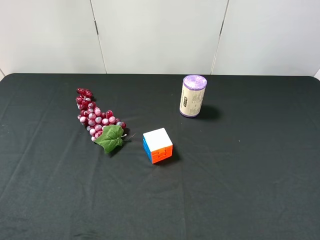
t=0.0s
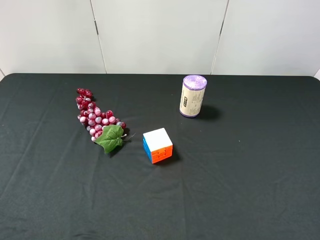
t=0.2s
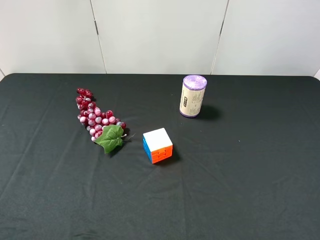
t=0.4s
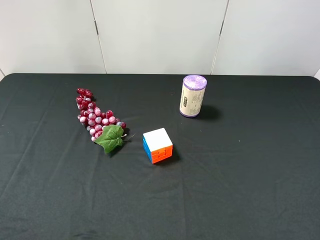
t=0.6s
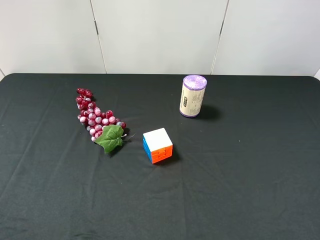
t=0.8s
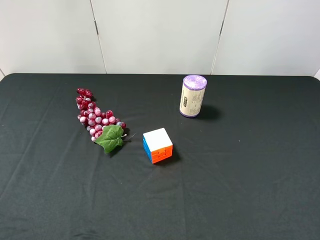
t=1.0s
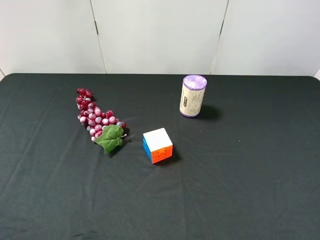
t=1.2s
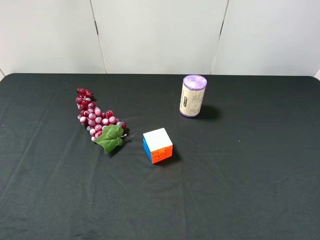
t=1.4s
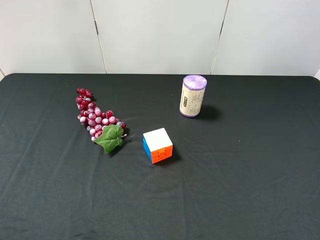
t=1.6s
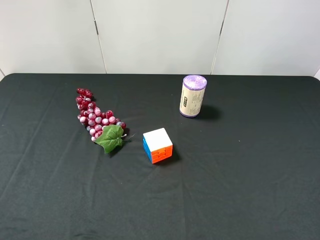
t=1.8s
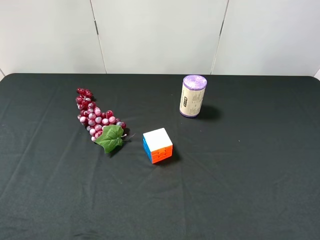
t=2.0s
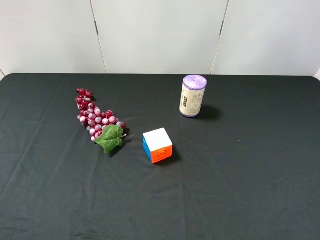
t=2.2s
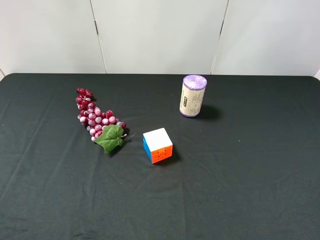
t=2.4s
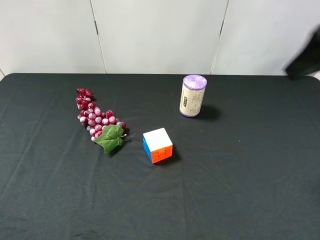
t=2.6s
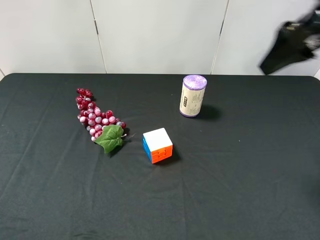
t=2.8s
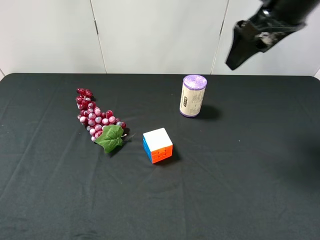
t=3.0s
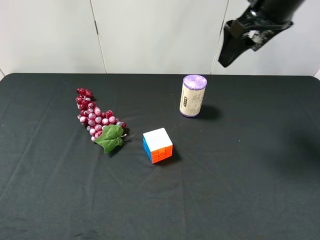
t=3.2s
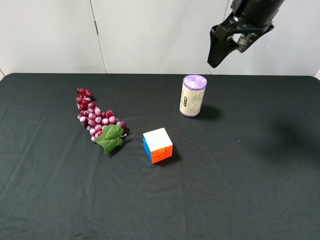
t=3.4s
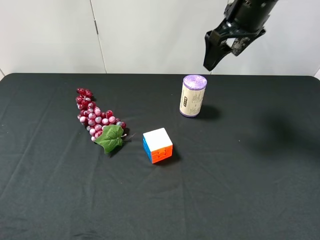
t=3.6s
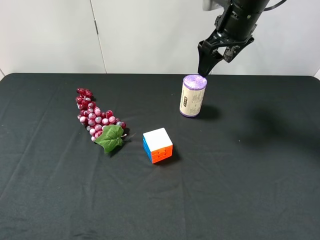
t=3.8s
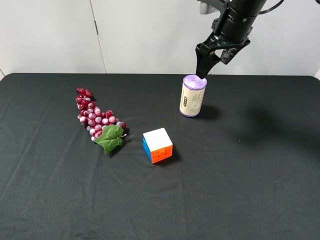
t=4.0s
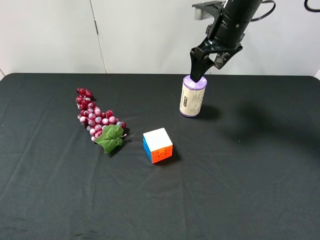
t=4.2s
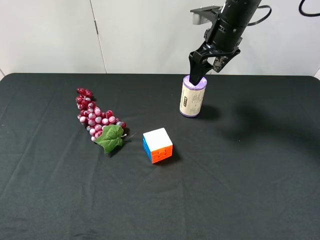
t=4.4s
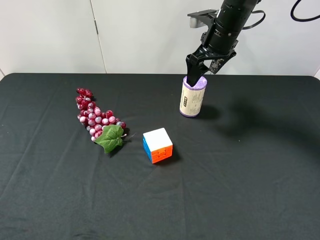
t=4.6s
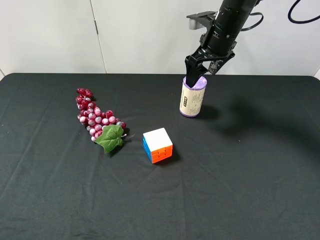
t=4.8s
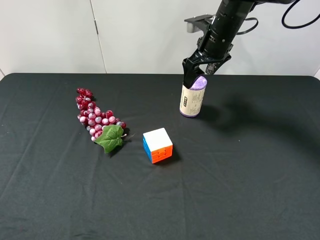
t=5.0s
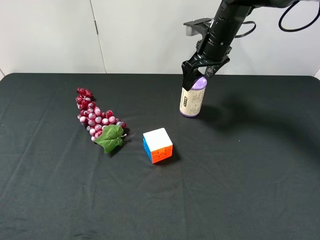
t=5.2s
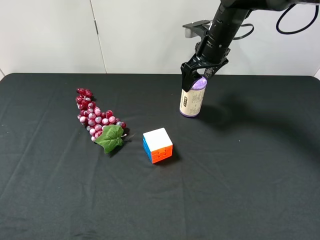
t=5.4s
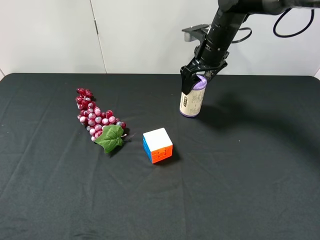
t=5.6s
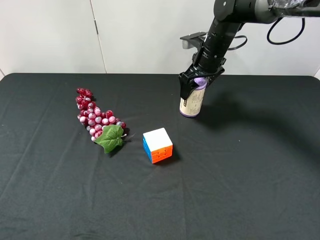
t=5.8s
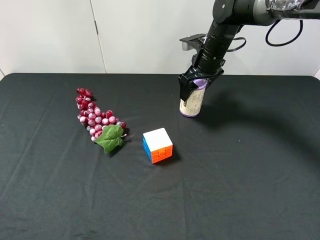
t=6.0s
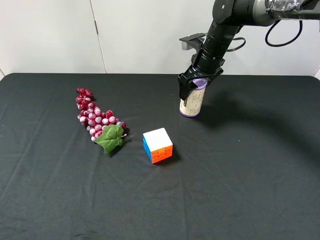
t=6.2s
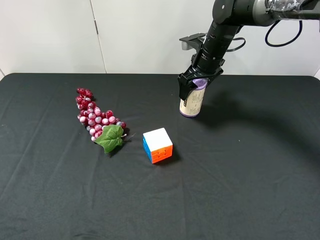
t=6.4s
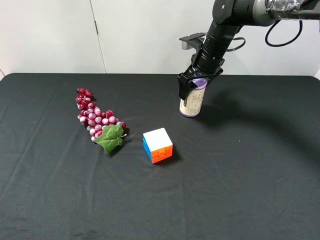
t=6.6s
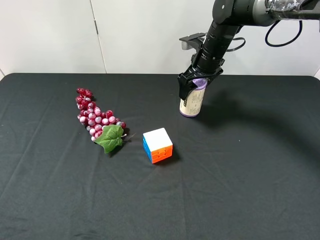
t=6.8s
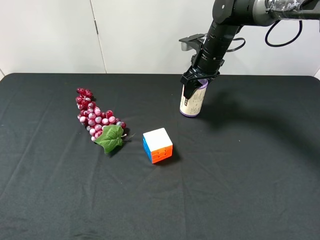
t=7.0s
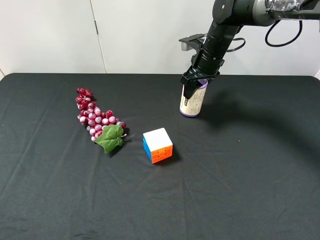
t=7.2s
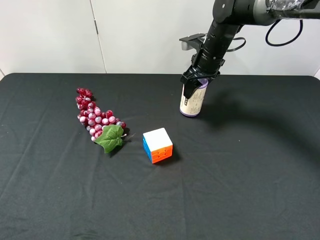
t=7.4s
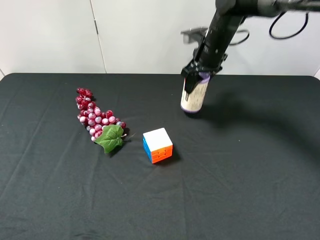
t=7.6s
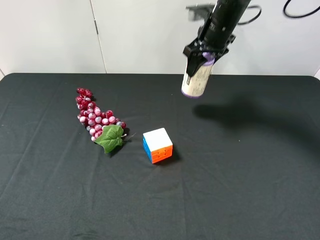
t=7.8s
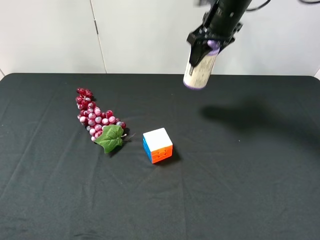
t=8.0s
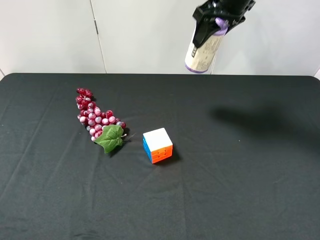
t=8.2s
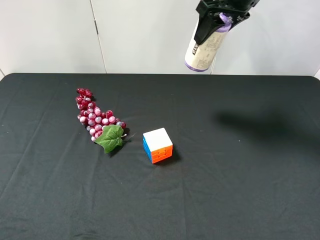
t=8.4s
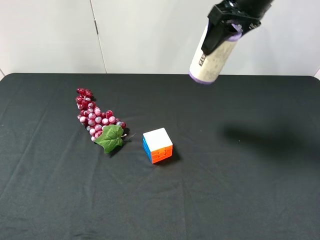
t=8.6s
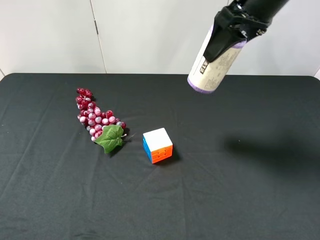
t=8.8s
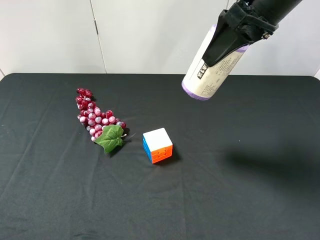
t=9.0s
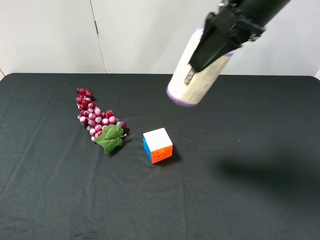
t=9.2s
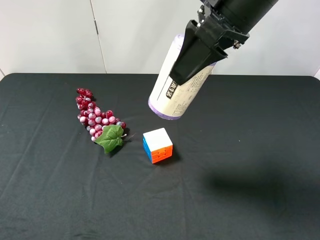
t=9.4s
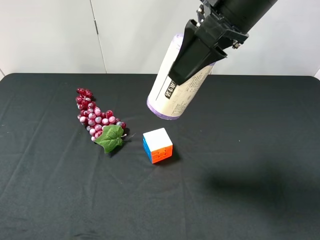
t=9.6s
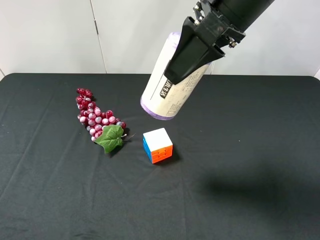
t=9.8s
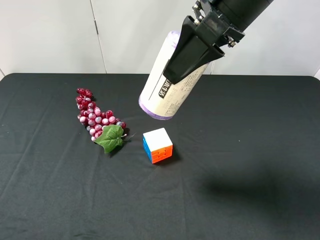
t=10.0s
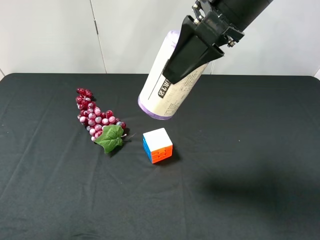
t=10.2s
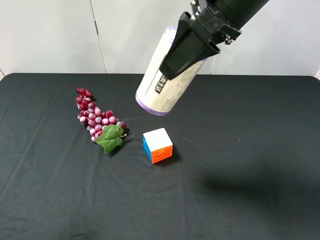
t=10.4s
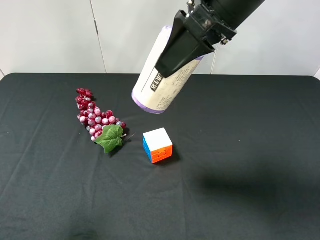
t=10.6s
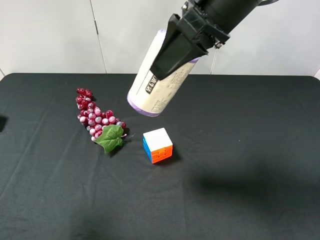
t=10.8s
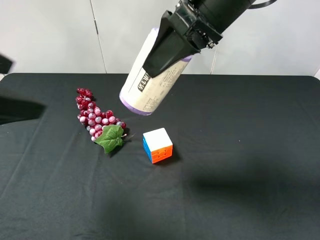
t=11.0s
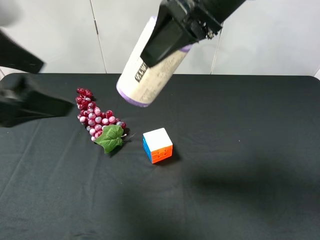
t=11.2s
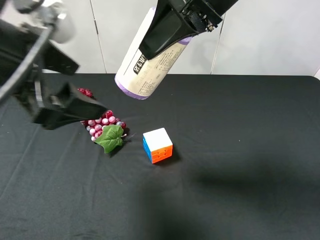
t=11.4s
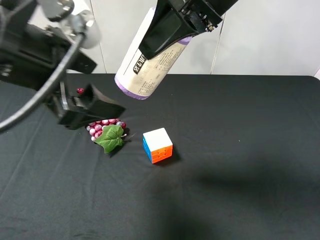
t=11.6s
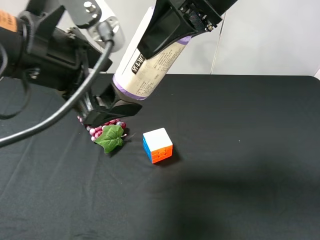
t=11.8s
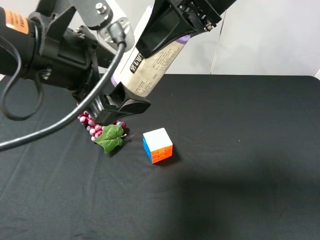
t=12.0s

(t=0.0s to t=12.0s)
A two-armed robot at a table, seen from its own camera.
Task of the whole recording: use the right gripper to pick up the item and transfer it from the right gripper to the left gripper.
Step, t=0.0s - t=7.2s: Use the right gripper to grab the purple garbage bag on the right side of the table.
t=0.0s - t=1.6s: The two grippers keep their place.
t=1.6s - t=3.0s: The right gripper goes some 30 cm forward.
t=3.0s - t=4.4s: The right gripper is displaced forward and downward by roughly 15 cm.
t=4.4s - t=6.0s: The right gripper goes roughly 5 cm downward.
t=6.0s - t=7.6s: The right gripper closes.
t=7.6s - t=9.0s: The right gripper shifts some 20 cm backward and upward.
t=9.0s - t=10.4s: The left gripper is displaced forward by approximately 5 cm. Meanwhile the right gripper travels to the left by some 5 cm.
t=10.4s - t=12.0s: The left gripper travels to the right and forward by roughly 20 cm.

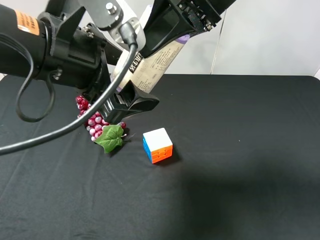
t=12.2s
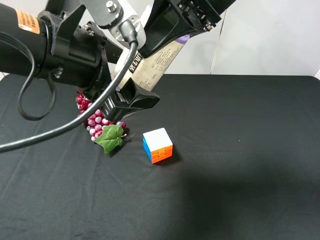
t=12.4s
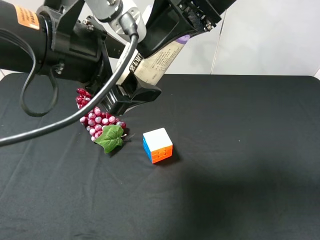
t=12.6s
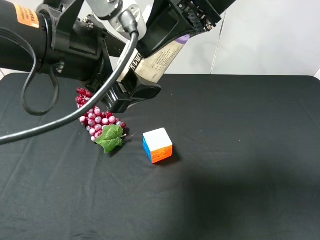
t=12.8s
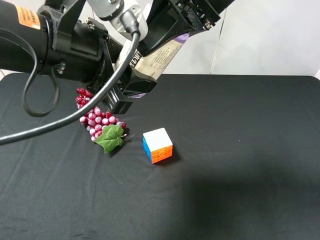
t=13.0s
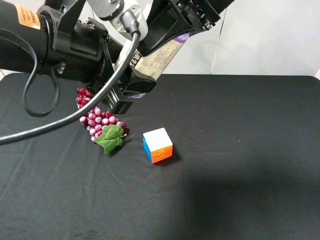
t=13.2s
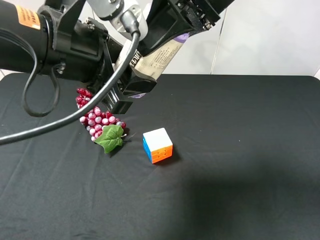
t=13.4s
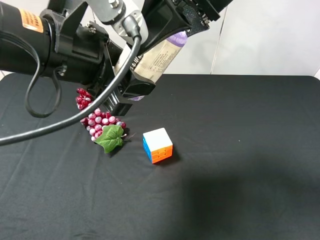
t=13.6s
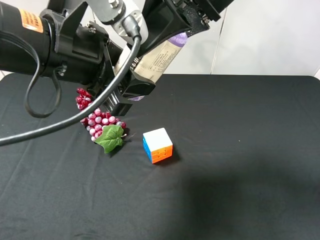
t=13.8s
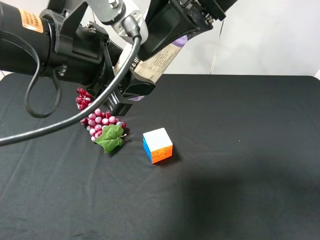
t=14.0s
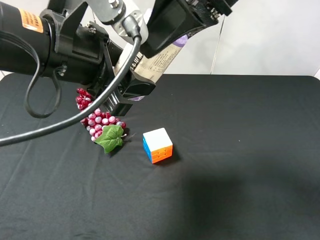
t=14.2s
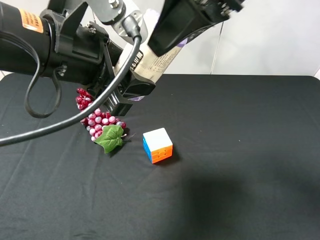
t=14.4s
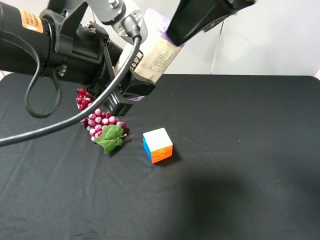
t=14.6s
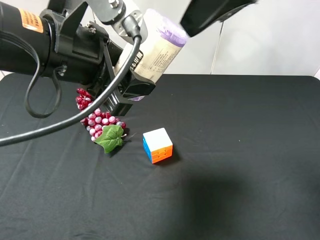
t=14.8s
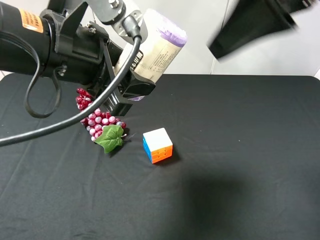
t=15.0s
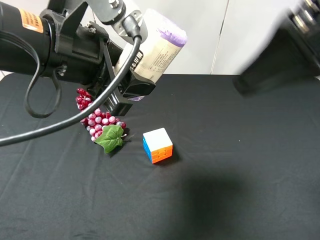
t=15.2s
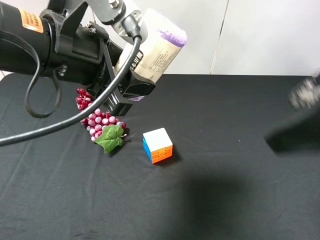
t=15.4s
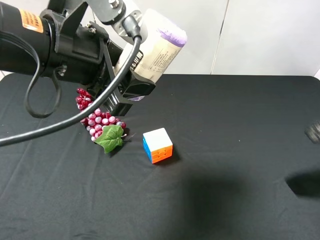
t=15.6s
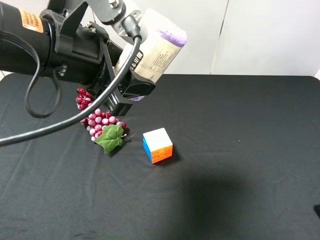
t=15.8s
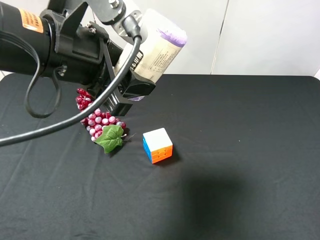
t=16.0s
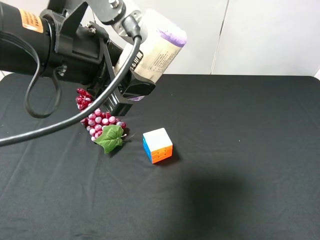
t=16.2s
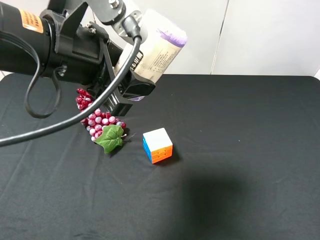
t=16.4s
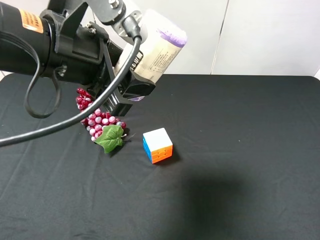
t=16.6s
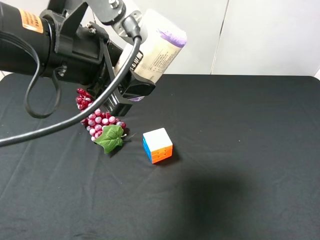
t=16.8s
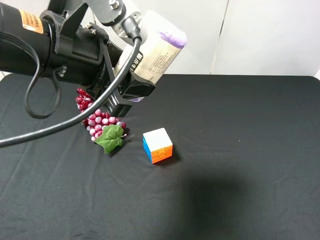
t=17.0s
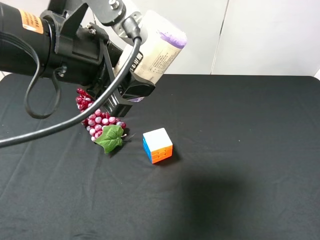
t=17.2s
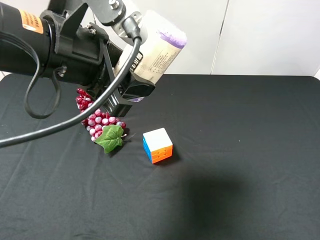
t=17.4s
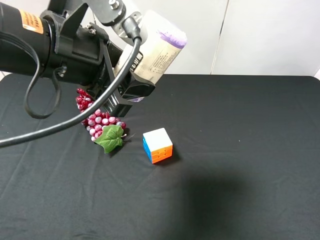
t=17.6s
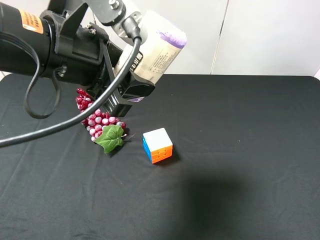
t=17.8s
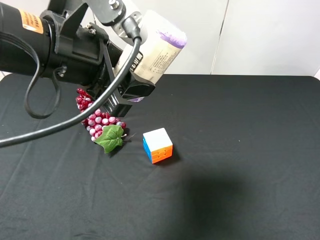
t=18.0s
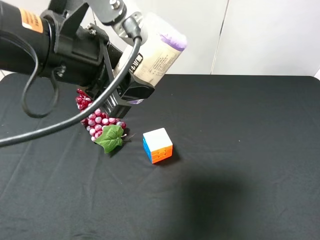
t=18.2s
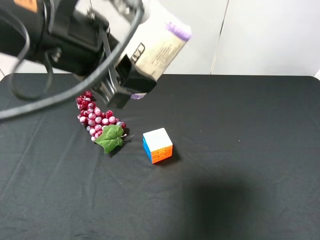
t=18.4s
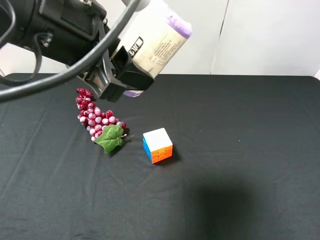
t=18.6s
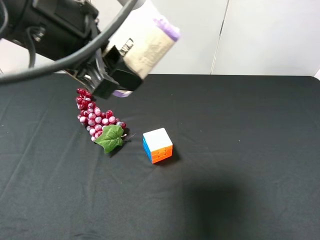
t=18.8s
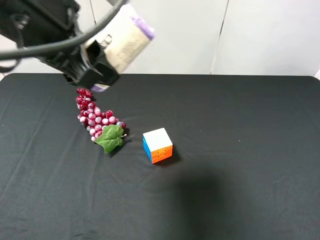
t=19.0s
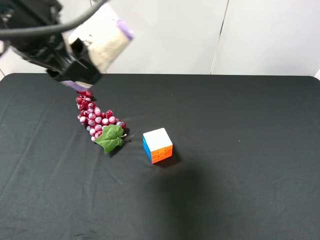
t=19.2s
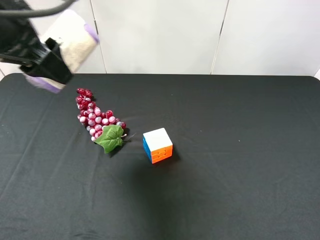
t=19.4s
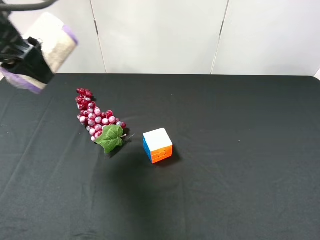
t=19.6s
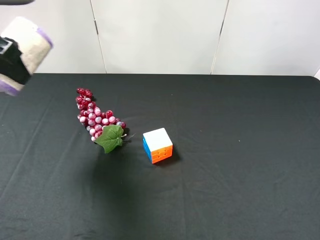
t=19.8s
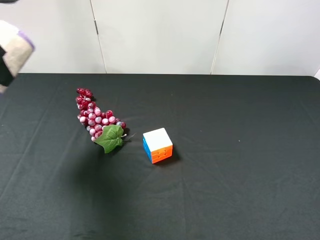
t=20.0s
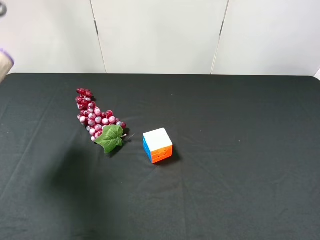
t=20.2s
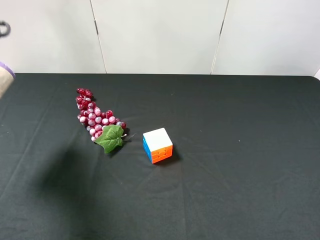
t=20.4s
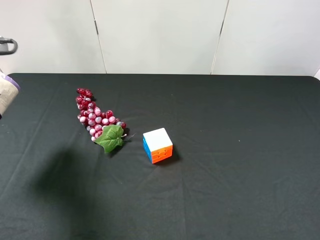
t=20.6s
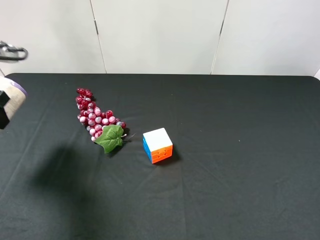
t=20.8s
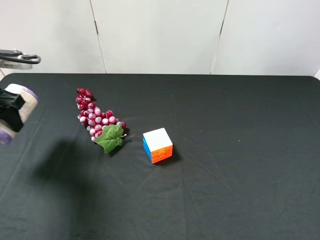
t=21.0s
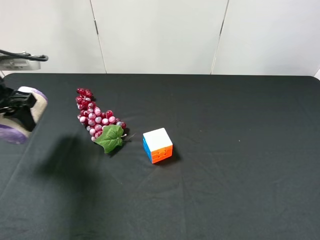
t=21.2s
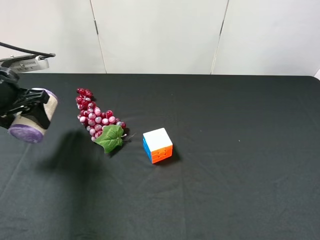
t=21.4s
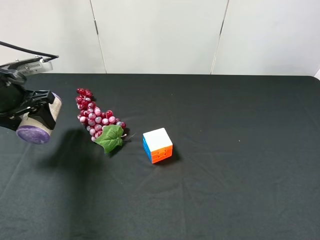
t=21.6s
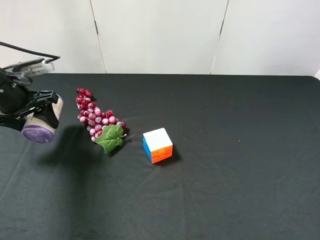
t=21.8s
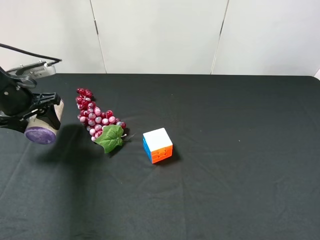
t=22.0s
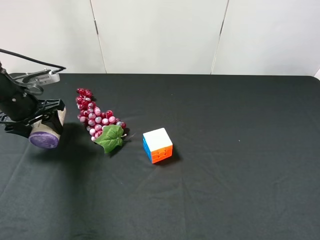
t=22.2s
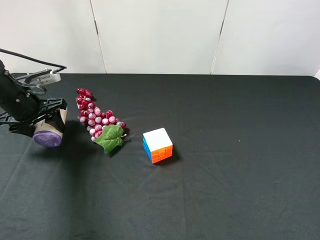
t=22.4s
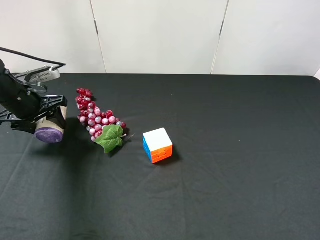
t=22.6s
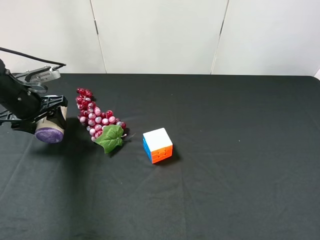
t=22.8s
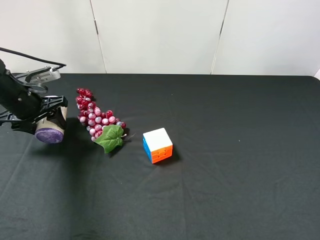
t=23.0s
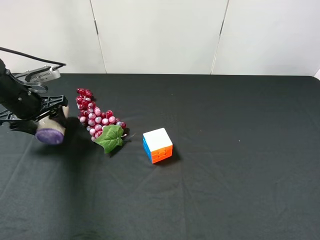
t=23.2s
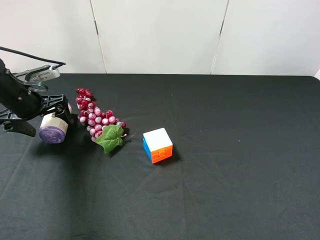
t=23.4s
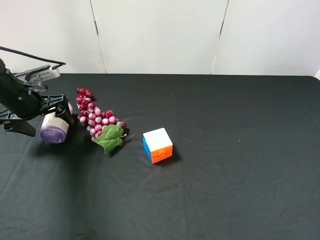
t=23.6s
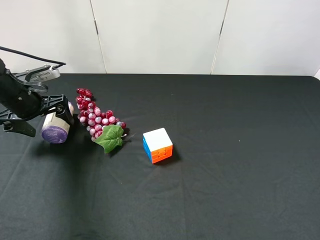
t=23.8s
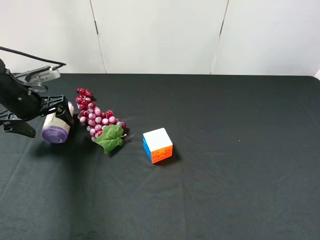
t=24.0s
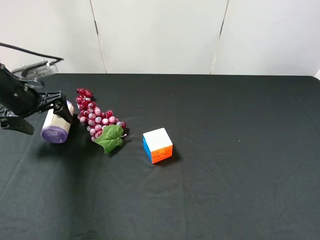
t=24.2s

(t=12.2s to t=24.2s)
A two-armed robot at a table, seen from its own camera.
Task of the whole recording: use the right gripper to pick up the item and transfer it from the right gripper to the left gripper.
Step, t=13.8s - t=23.4s: The left gripper places purple garbage bag on the left side of the table.
t=12.2s - t=13.8s: The left gripper closes, while the right gripper opens up.
t=13.8s - t=15.2s: The right gripper travels backward and to the right by some 15 cm.
t=15.2s - t=16.6s: The right gripper is displaced backward, to the right and downward by approximately 20 cm.
t=18.2s - t=19.8s: The left gripper moves to the left, approximately 15 cm.
t=19.8s - t=21.2s: The left gripper heads downward, covering some 10 cm.
t=21.2s - t=22.6s: The left gripper shifts roughly 5 cm downward.
t=22.6s - t=24.2s: The left gripper opens.
